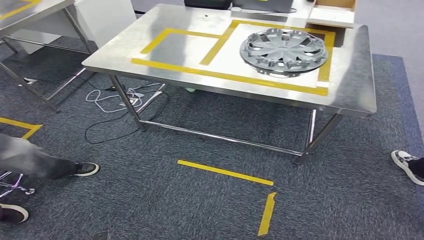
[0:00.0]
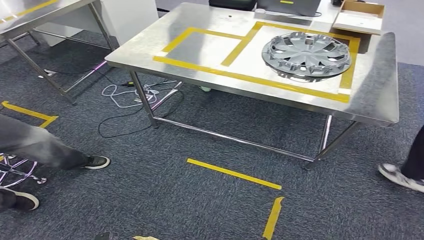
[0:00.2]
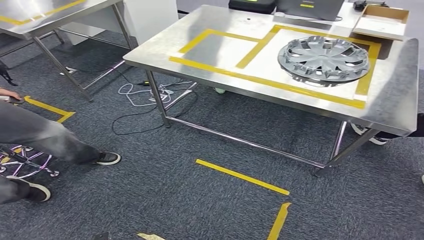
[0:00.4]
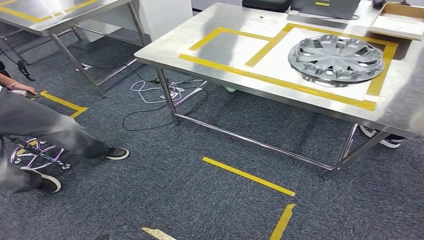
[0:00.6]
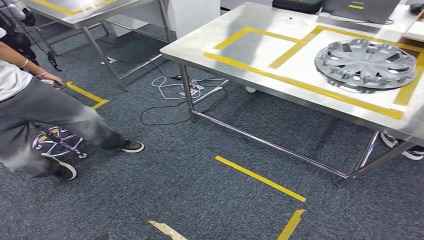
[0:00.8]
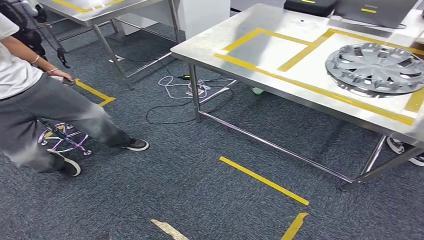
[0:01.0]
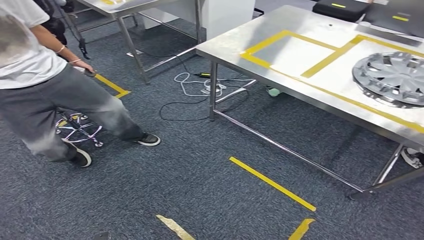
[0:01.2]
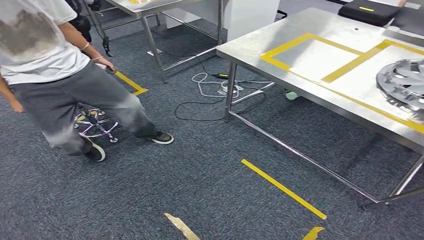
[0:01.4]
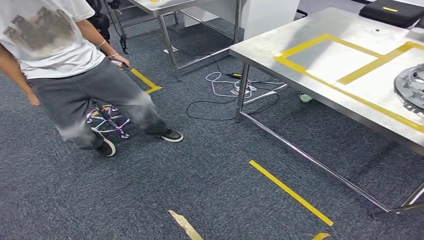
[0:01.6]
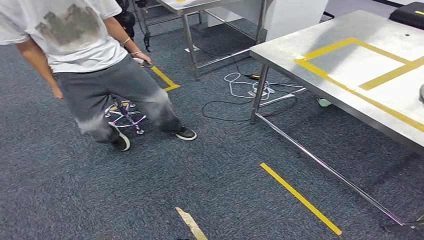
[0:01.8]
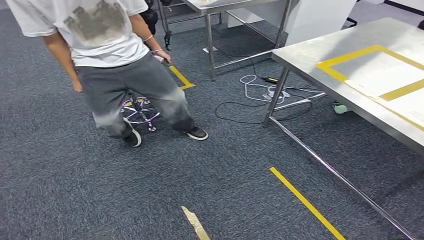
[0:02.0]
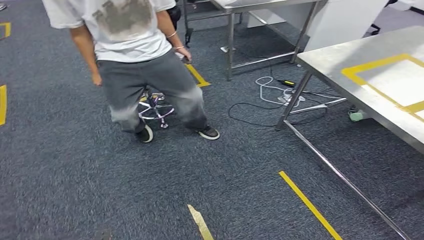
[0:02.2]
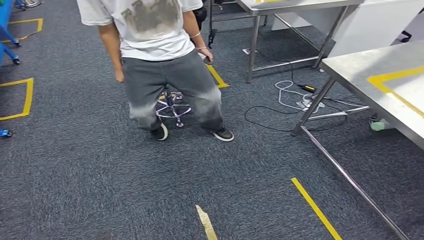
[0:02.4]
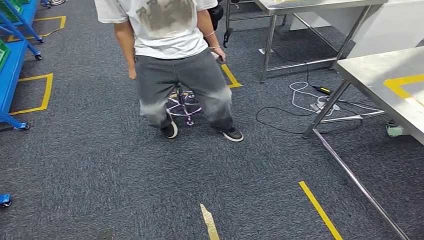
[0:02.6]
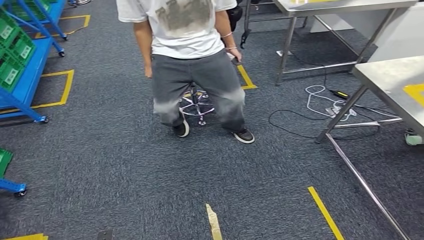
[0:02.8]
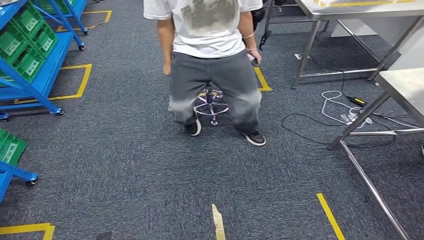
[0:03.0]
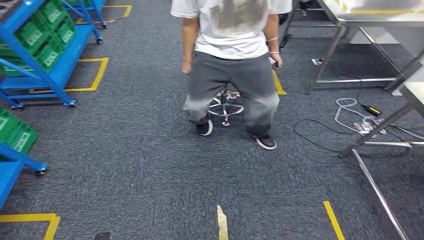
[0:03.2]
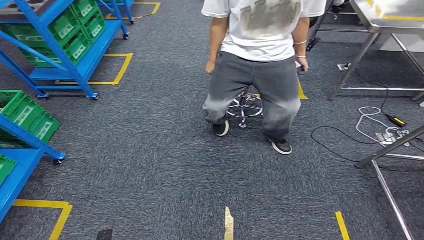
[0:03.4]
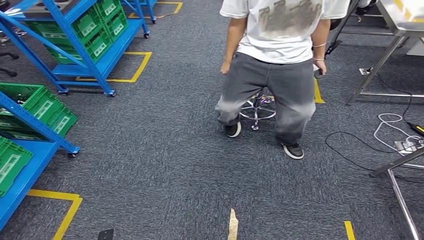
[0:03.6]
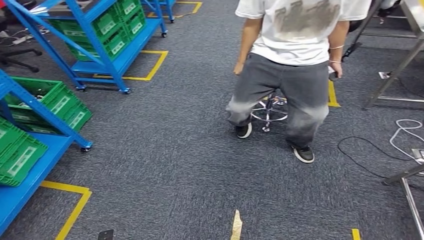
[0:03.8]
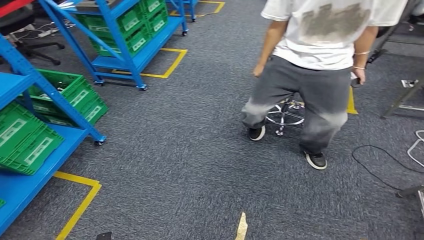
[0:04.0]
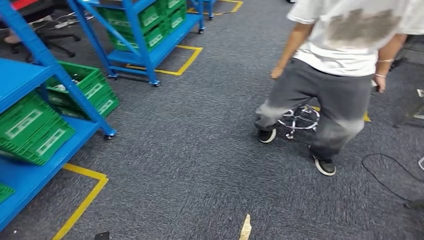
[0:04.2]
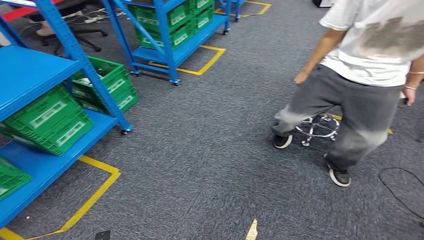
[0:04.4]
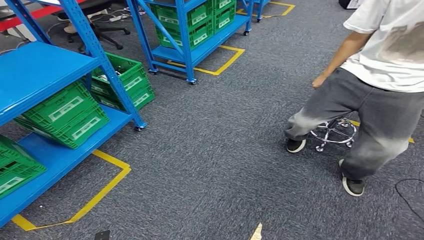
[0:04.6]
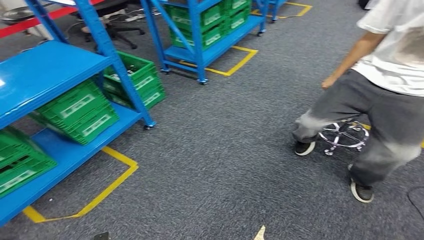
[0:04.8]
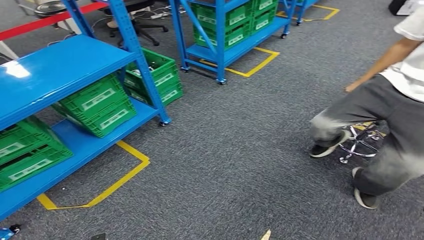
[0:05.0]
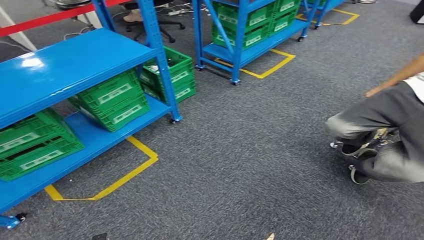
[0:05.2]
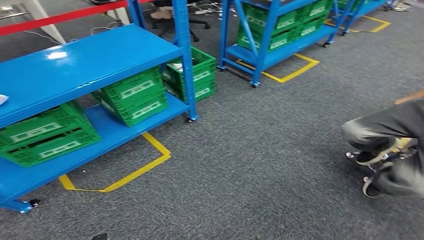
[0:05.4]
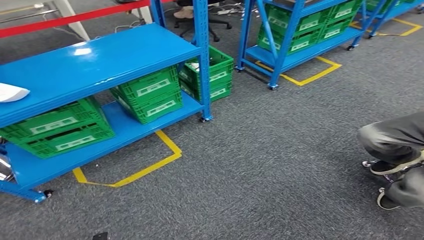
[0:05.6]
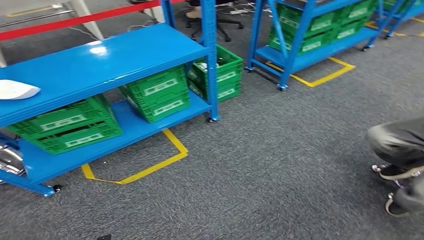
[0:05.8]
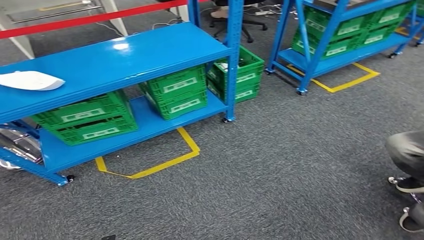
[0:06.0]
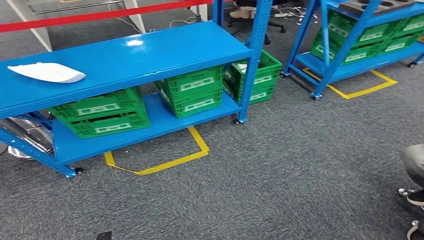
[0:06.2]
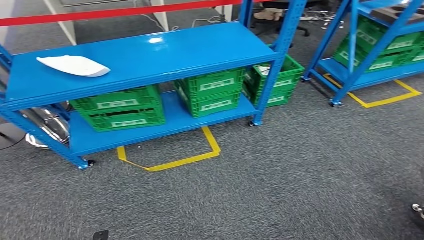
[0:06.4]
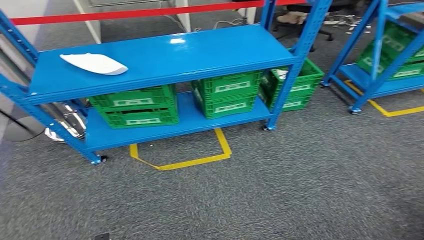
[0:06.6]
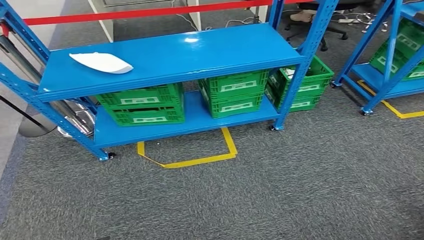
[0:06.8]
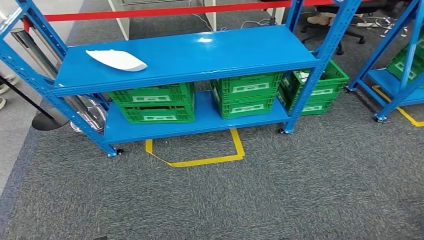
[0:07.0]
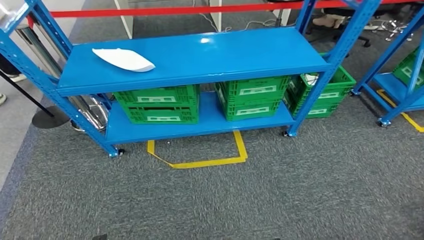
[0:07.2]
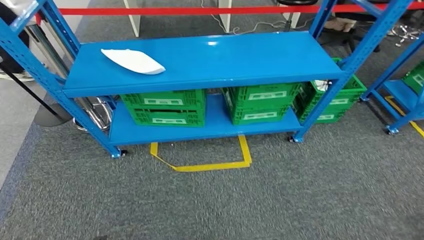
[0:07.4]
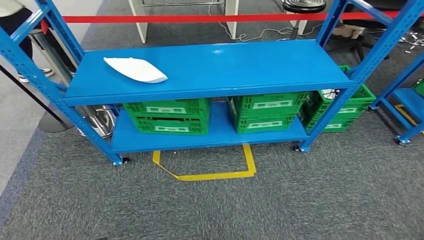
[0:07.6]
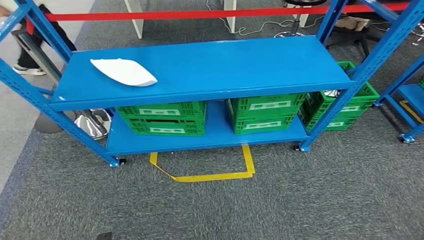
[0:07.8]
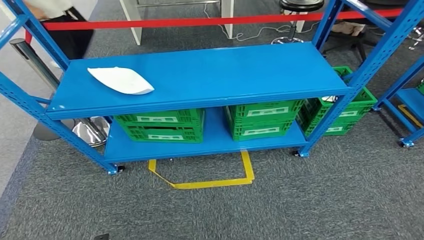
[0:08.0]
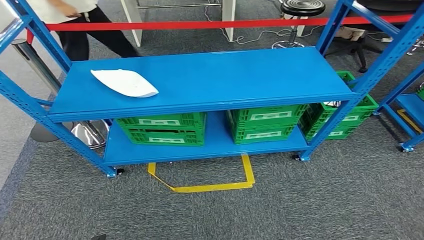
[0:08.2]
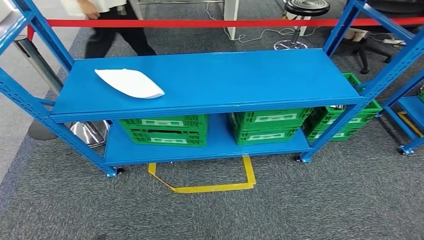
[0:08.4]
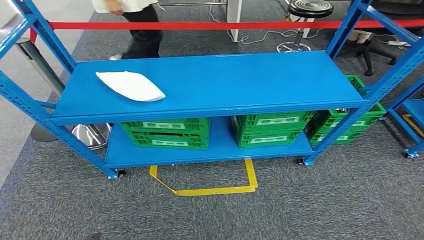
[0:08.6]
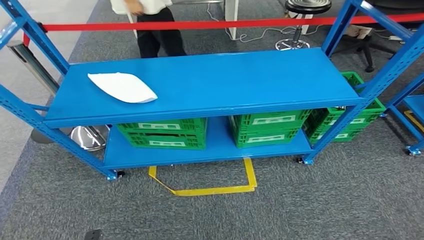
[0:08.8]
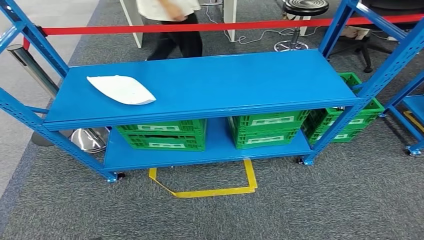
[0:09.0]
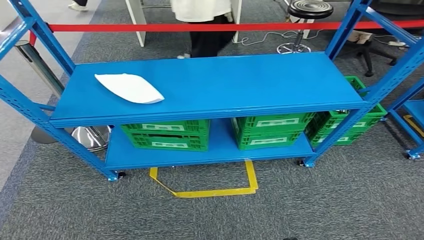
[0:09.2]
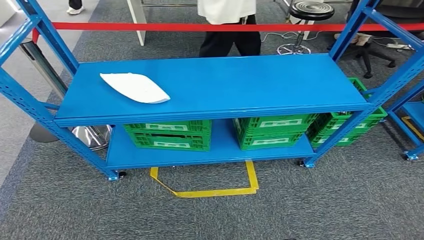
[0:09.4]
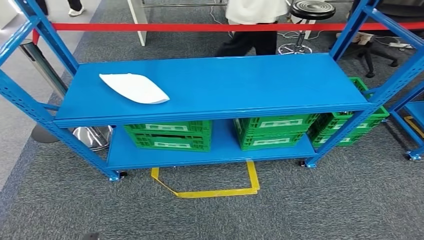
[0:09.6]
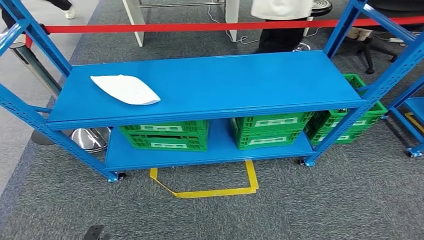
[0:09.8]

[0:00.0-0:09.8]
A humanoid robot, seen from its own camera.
Step, 0:00.0 to 0:09.8: Return to the initial position at the workbench.
